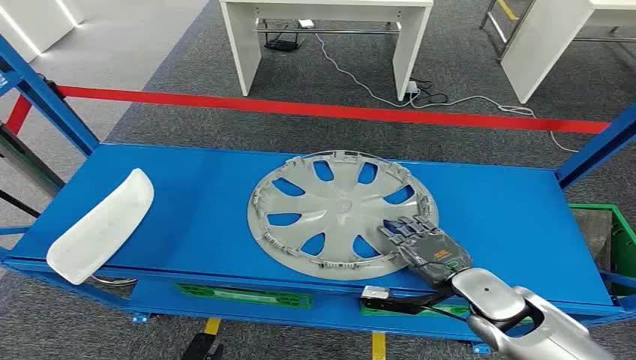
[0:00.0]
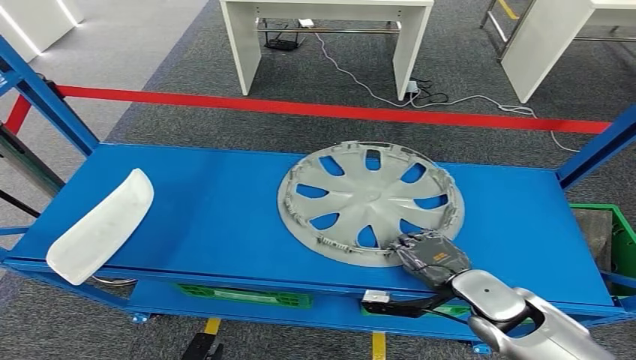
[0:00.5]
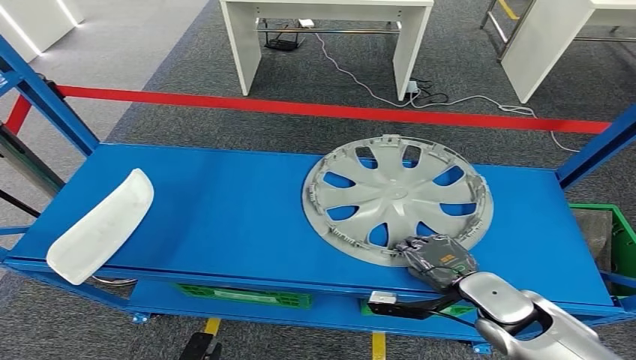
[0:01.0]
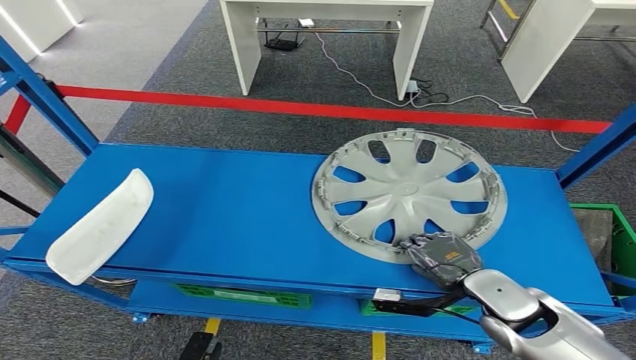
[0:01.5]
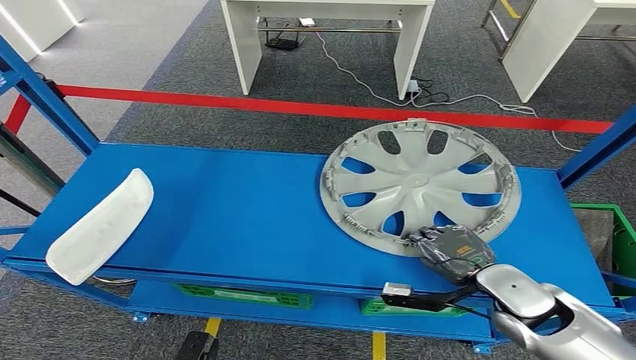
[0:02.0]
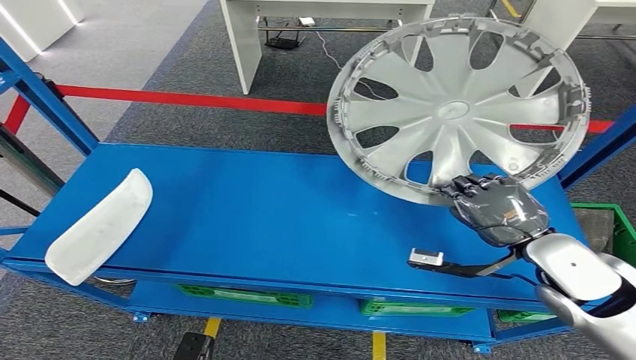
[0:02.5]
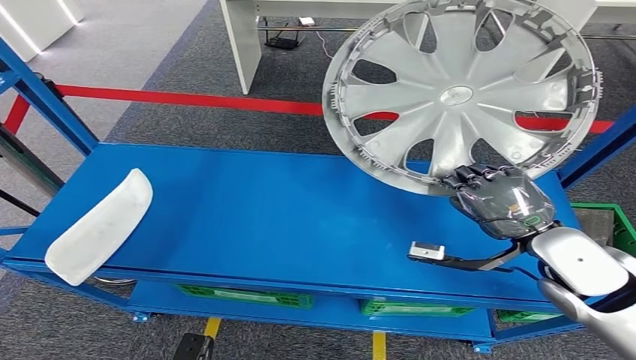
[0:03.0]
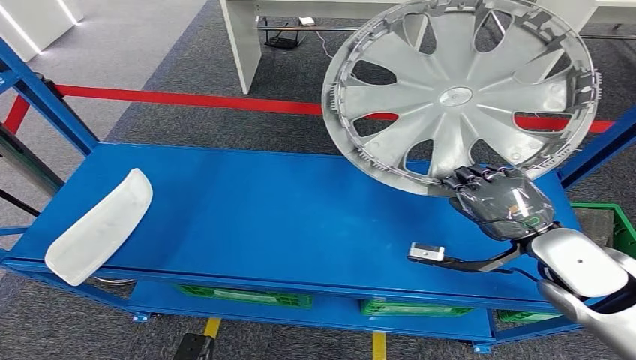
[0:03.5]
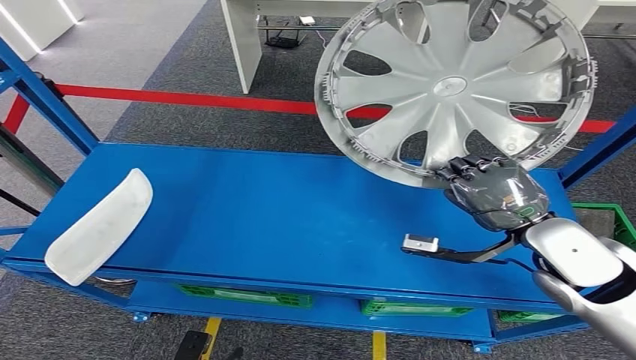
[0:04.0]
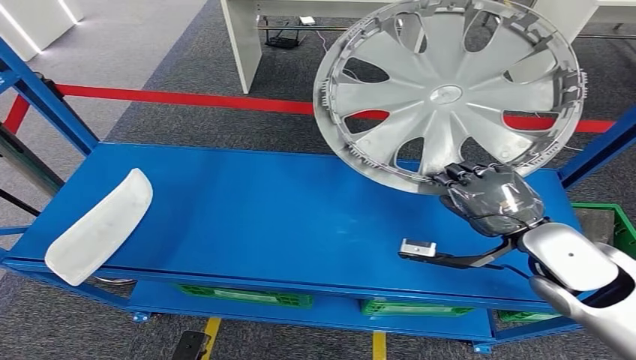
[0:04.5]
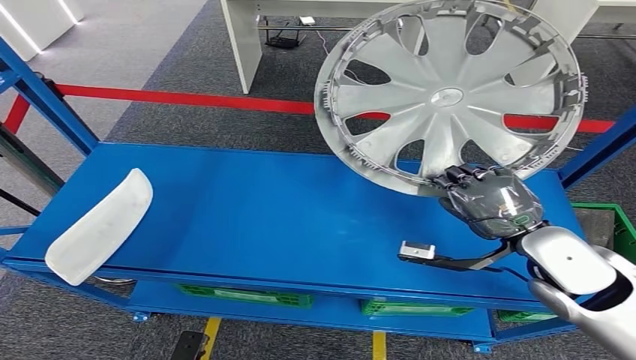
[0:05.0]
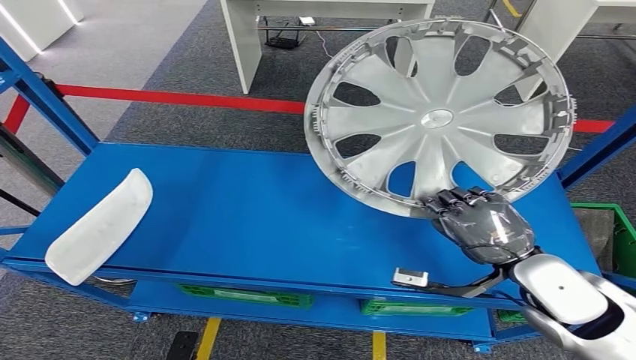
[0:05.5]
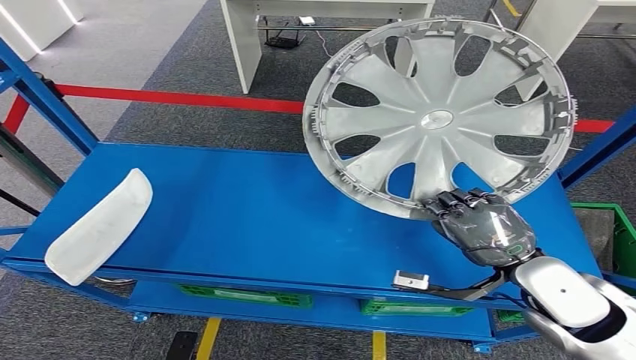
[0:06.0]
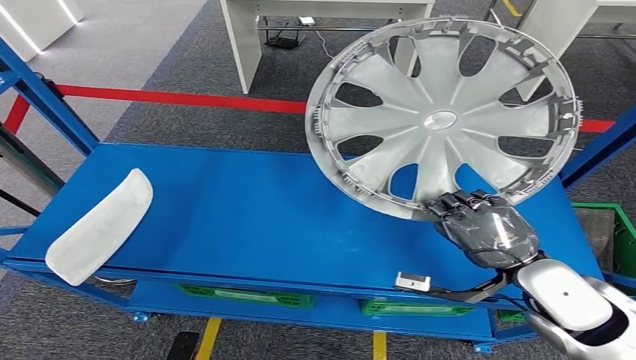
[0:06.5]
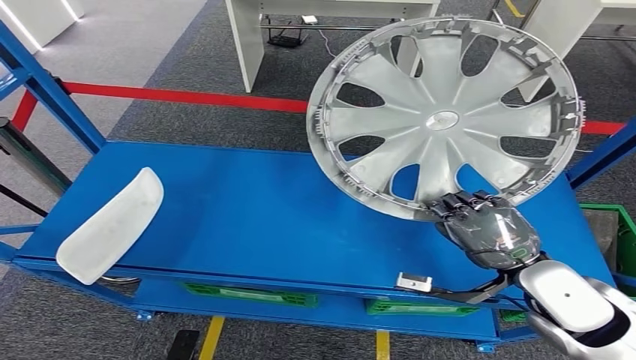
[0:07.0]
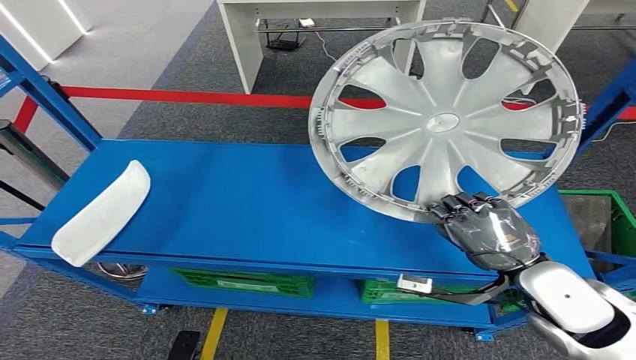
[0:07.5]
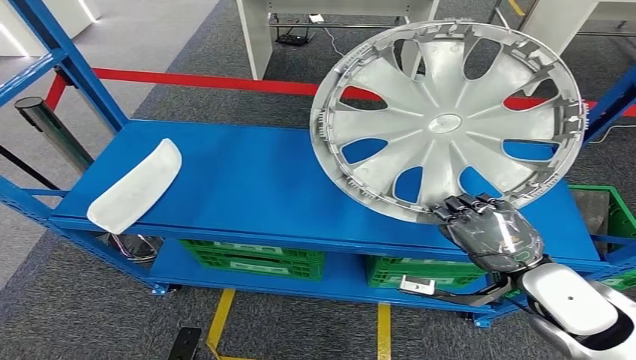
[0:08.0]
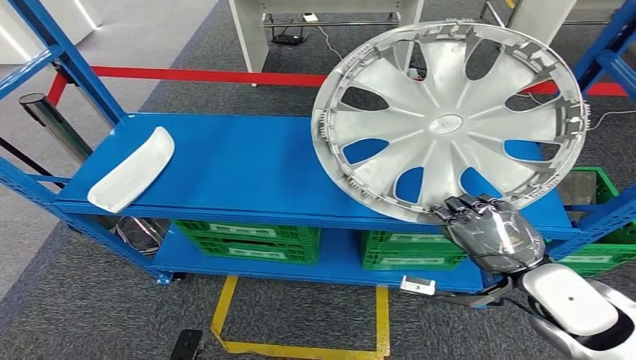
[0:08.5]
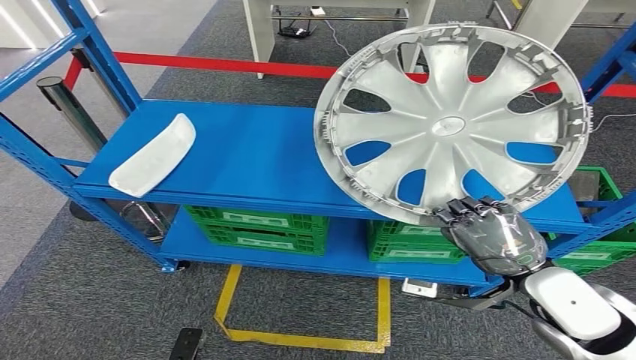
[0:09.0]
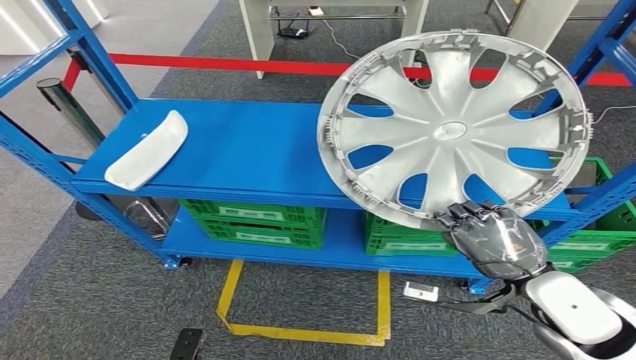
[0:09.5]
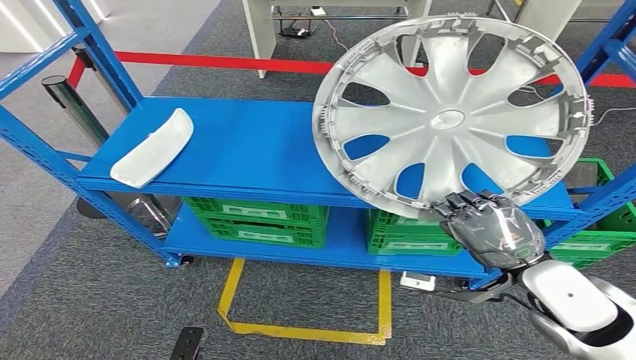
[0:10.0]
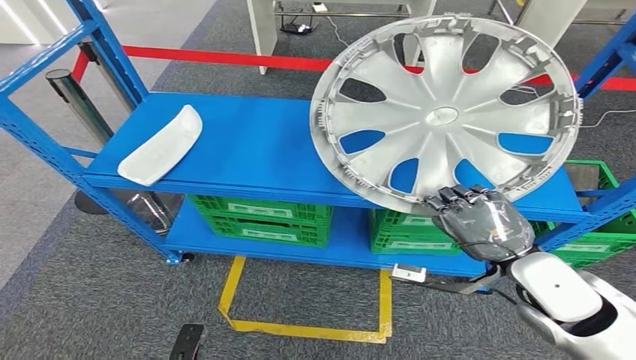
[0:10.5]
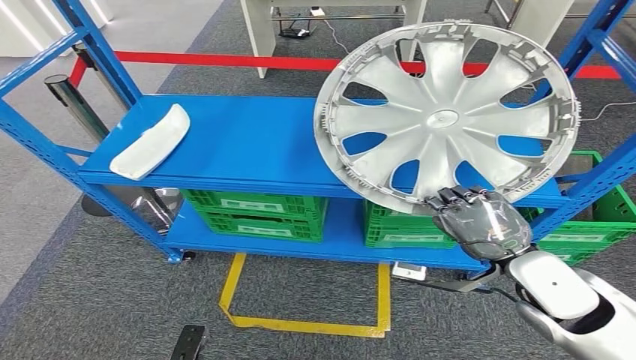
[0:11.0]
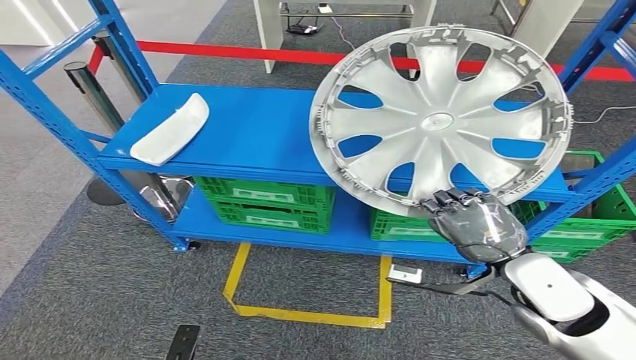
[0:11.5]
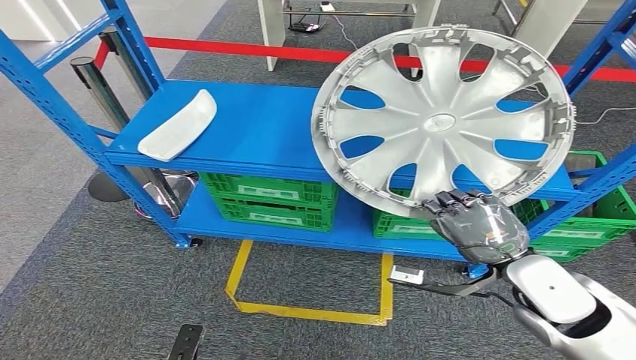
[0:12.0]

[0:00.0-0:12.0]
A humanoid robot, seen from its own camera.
Step, 0:00.0 to 0:08.0: Pick up the small component from the shelf.

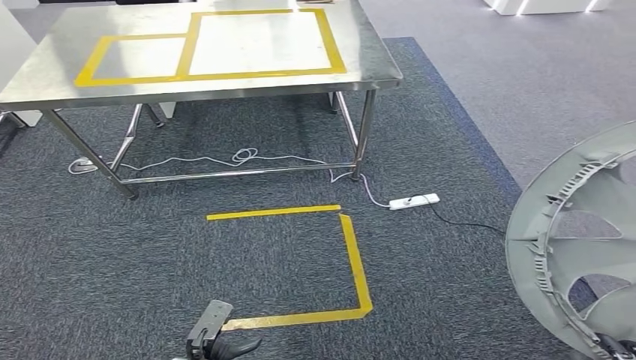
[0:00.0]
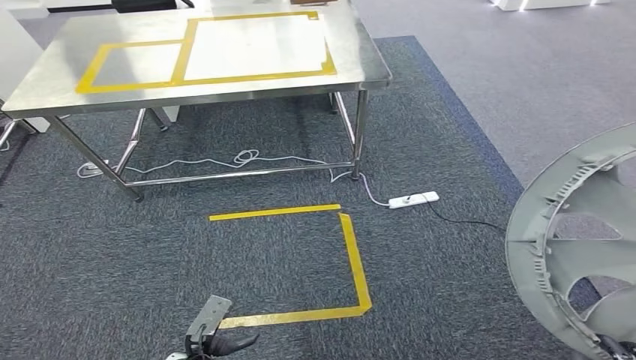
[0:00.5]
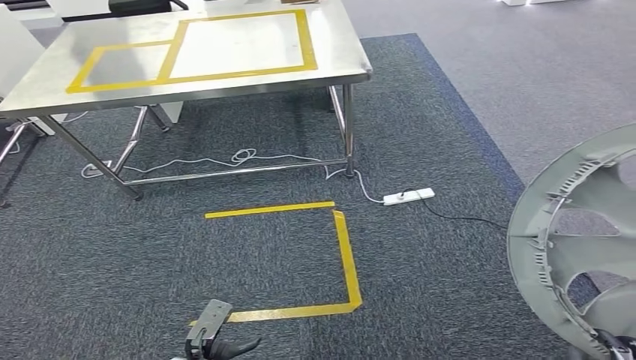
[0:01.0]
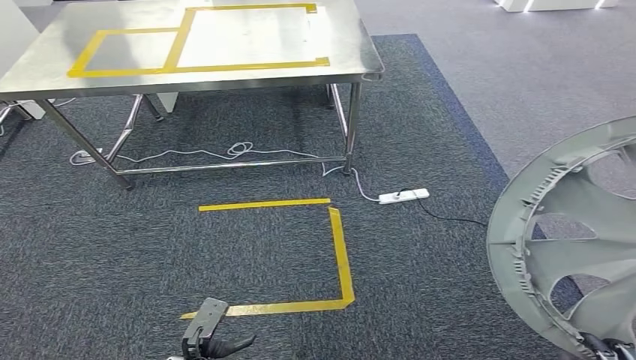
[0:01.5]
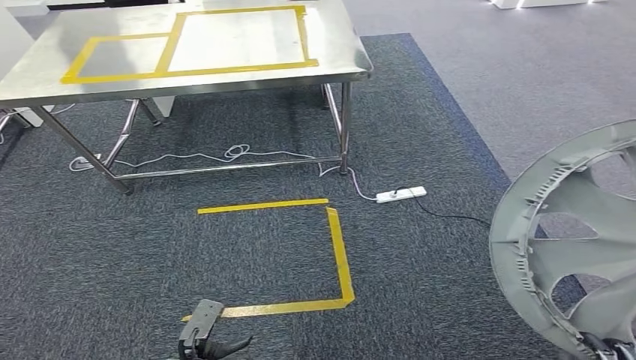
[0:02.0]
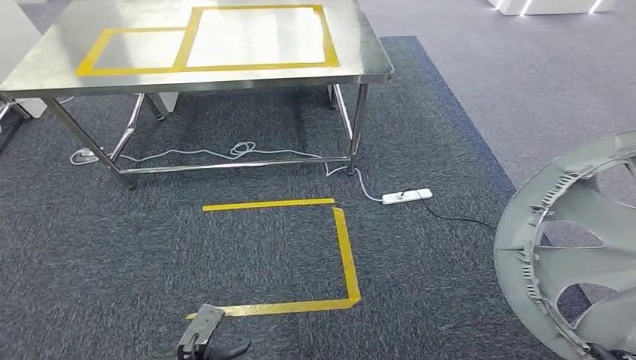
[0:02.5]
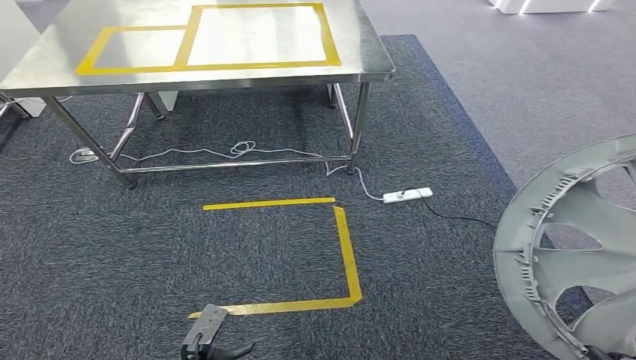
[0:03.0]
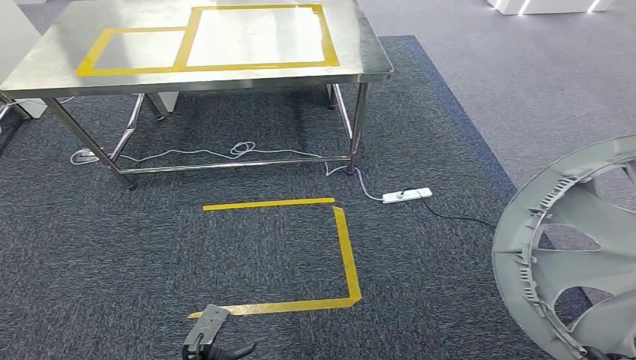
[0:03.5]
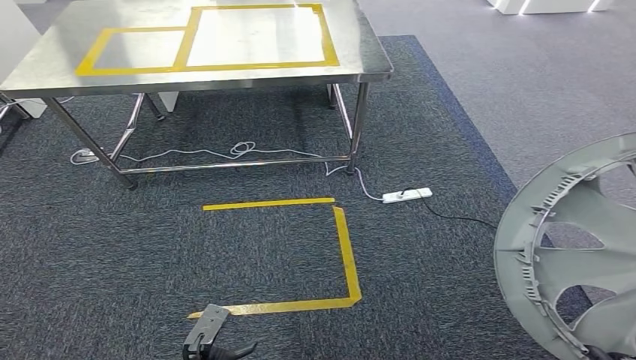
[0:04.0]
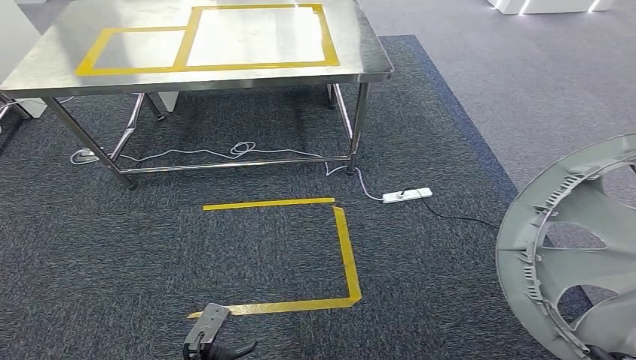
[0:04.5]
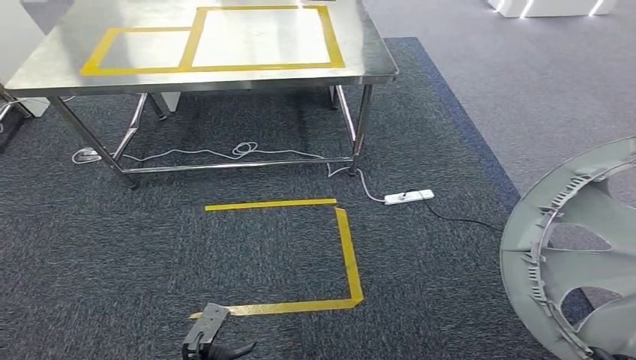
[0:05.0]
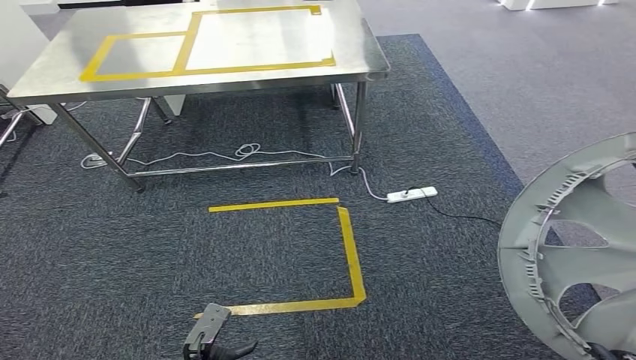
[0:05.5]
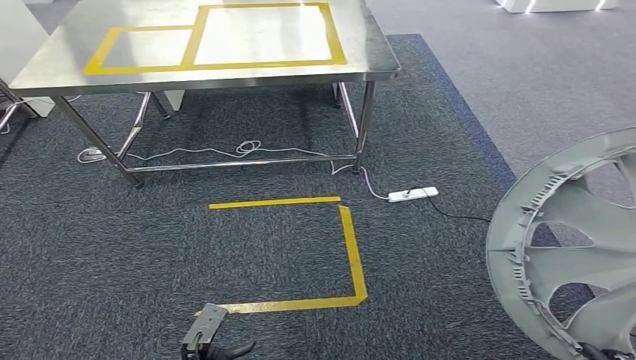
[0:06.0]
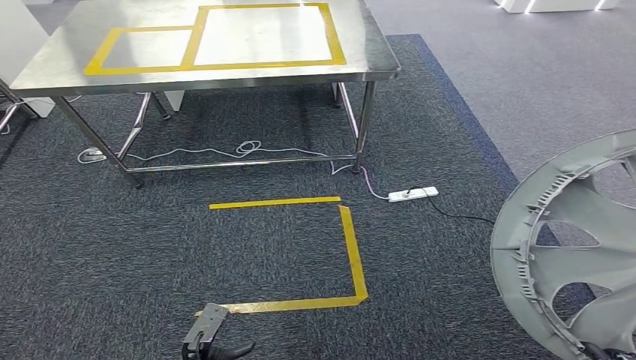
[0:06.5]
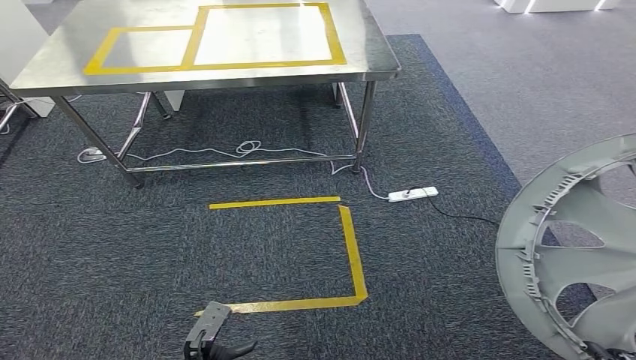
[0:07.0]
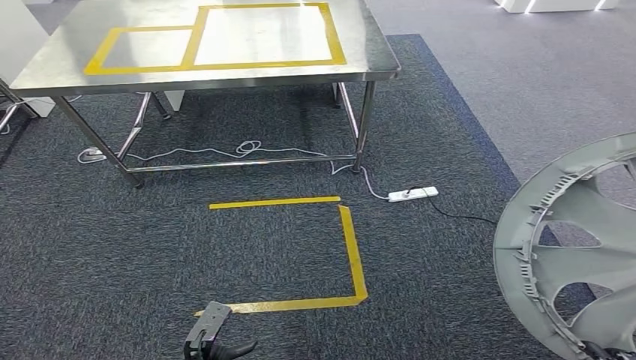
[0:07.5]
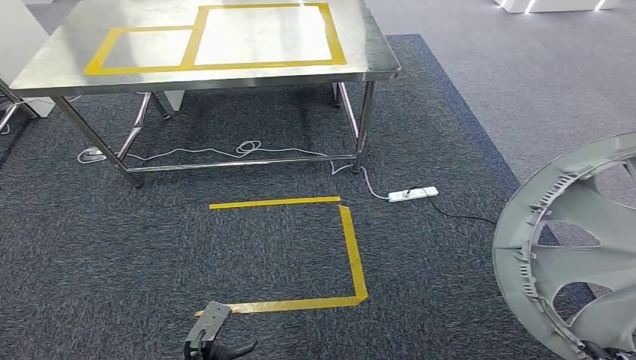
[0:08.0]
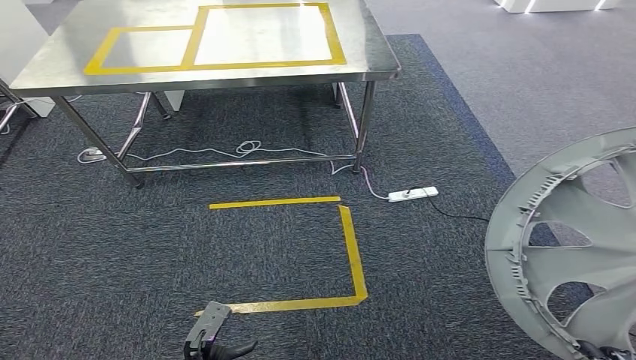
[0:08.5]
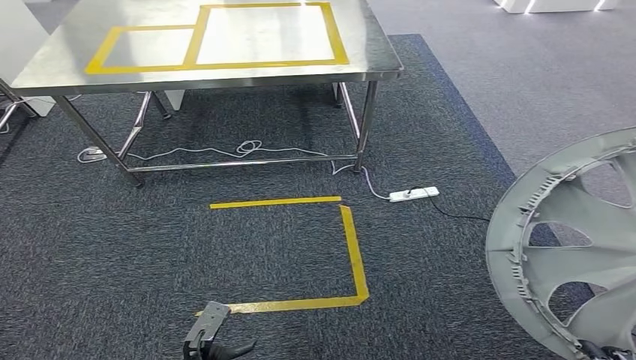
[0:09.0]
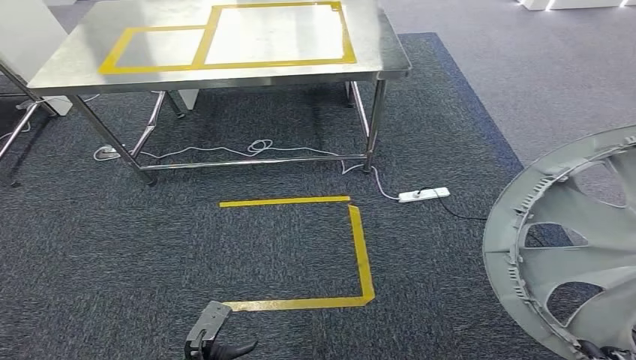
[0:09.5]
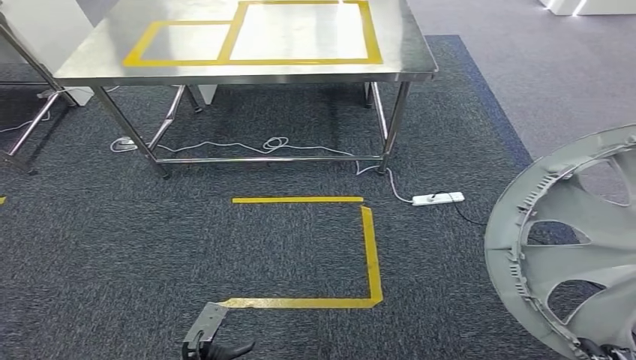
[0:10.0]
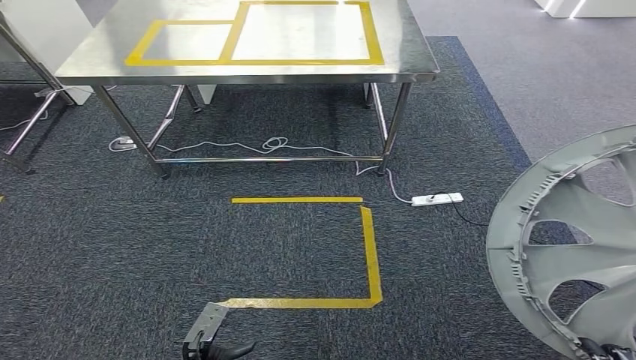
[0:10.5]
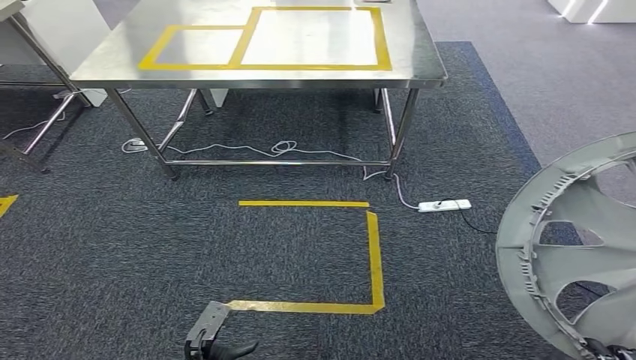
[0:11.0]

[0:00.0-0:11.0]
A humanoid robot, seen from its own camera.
0:00.0 to 0:02.0: The two hands keep their place.
0:02.0 to 0:03.5: There are only small adjustments of the hands.
0:03.5 to 0:09.0: The two hands keep their place.
